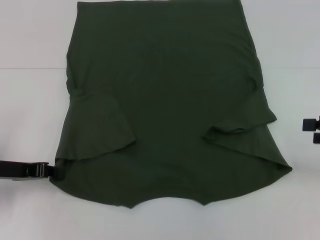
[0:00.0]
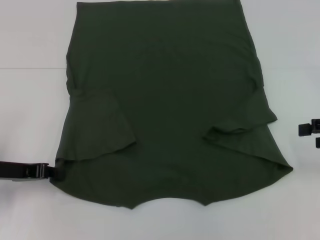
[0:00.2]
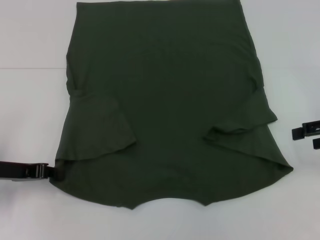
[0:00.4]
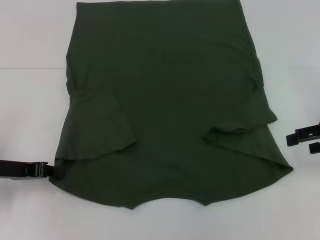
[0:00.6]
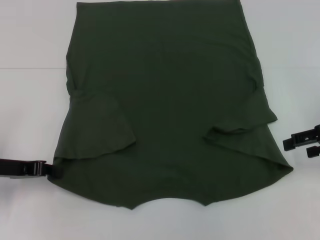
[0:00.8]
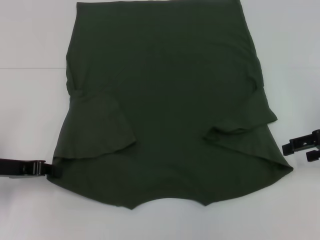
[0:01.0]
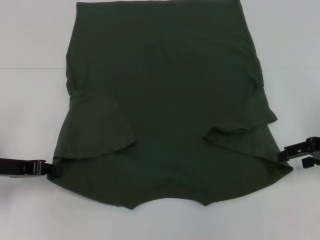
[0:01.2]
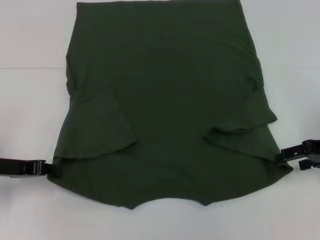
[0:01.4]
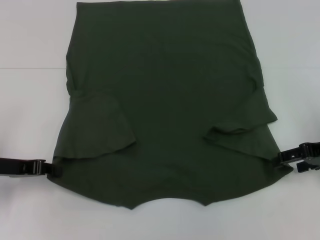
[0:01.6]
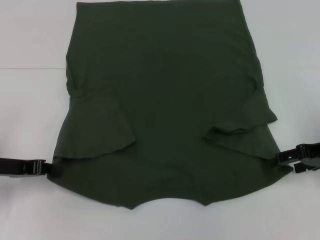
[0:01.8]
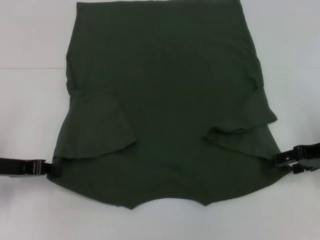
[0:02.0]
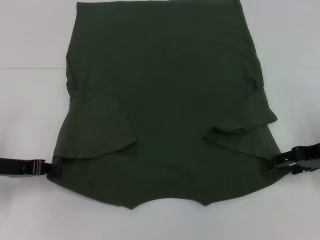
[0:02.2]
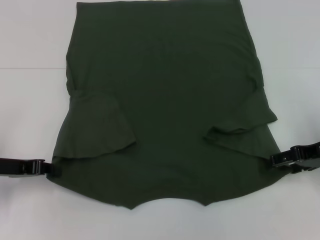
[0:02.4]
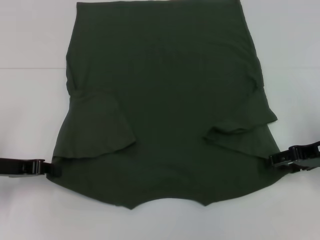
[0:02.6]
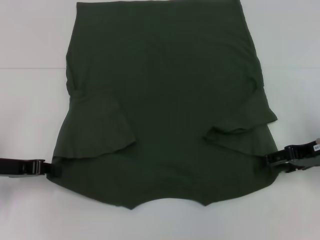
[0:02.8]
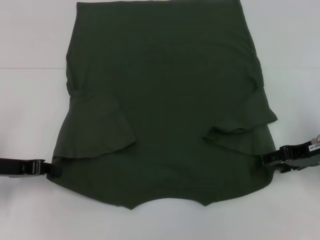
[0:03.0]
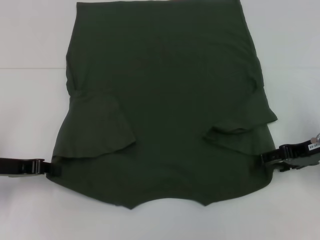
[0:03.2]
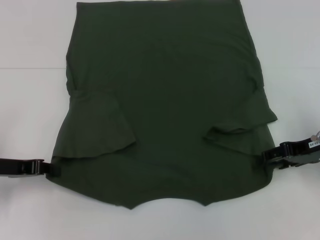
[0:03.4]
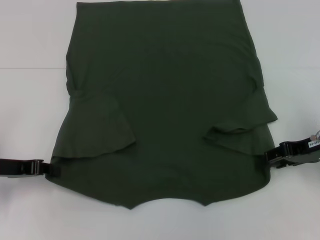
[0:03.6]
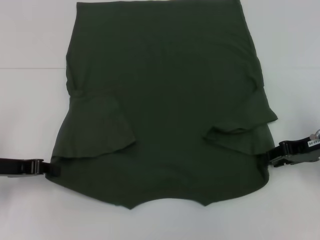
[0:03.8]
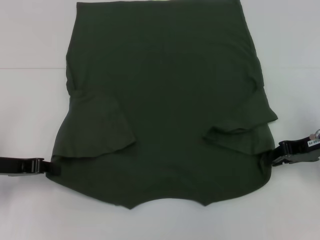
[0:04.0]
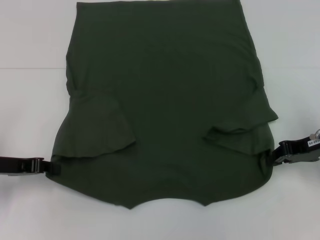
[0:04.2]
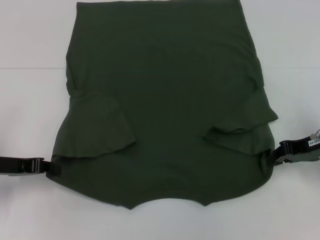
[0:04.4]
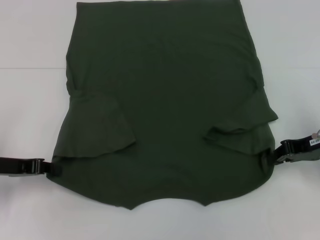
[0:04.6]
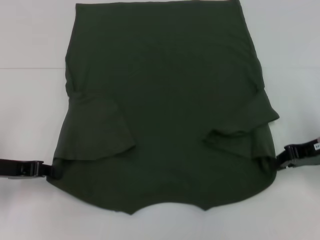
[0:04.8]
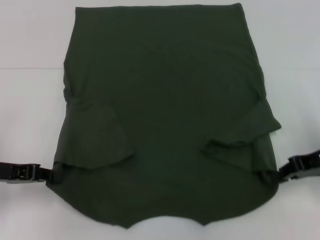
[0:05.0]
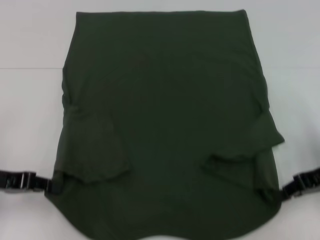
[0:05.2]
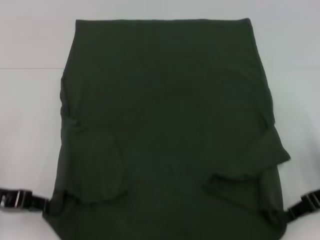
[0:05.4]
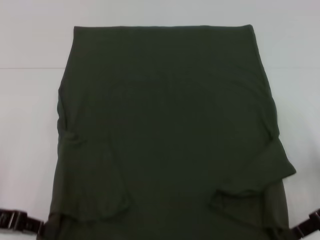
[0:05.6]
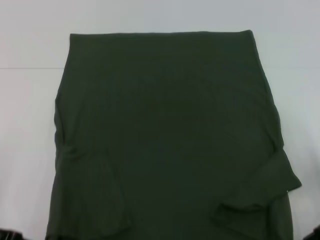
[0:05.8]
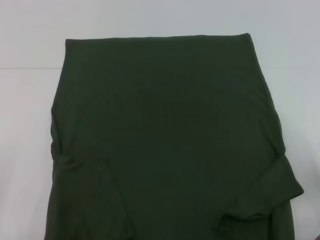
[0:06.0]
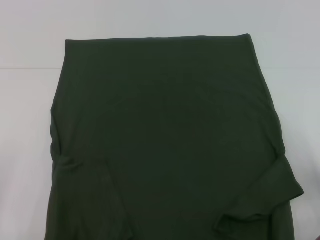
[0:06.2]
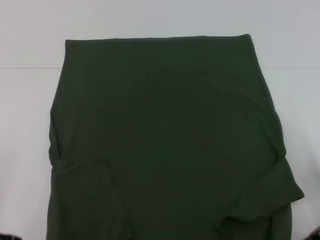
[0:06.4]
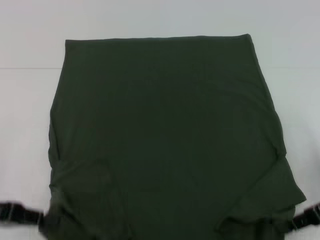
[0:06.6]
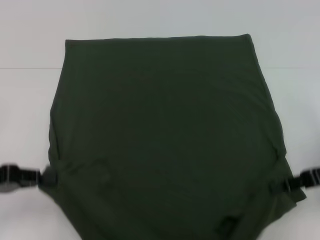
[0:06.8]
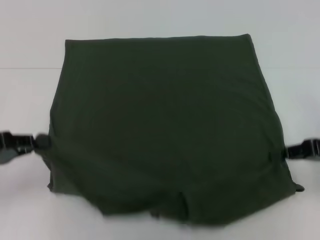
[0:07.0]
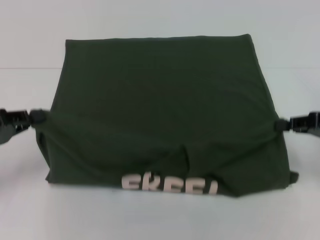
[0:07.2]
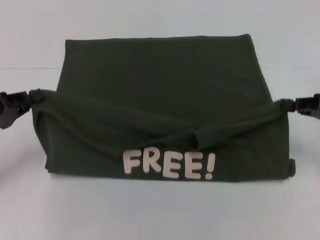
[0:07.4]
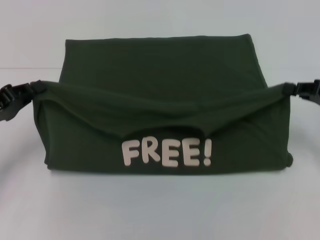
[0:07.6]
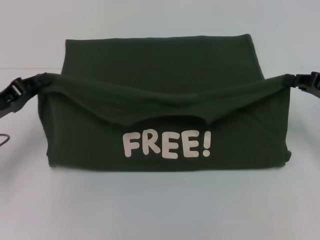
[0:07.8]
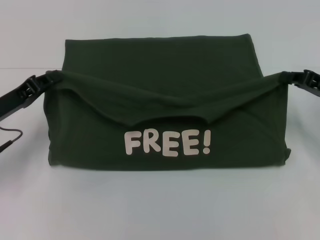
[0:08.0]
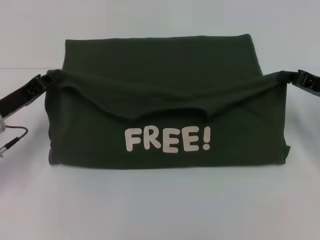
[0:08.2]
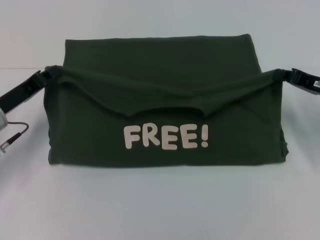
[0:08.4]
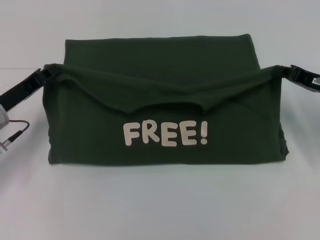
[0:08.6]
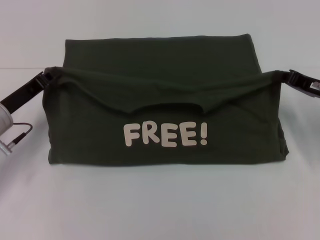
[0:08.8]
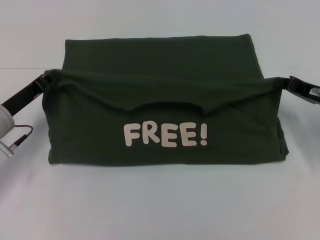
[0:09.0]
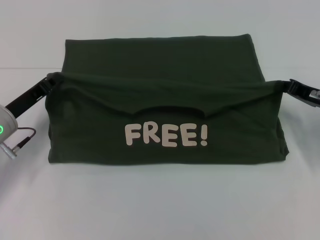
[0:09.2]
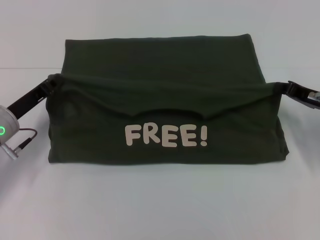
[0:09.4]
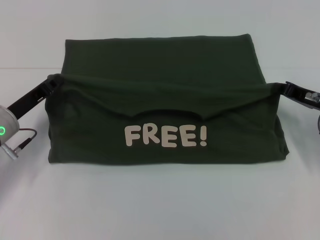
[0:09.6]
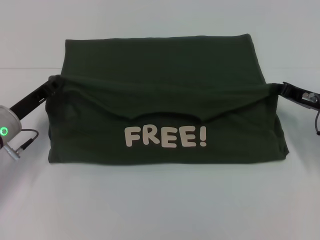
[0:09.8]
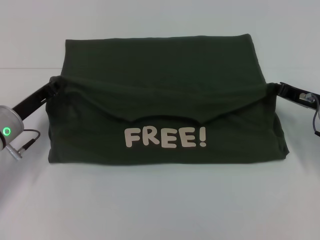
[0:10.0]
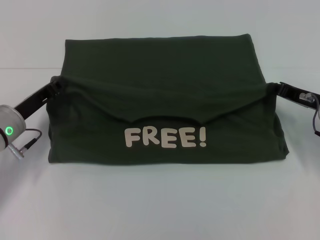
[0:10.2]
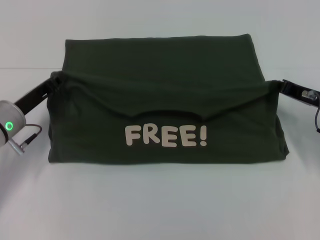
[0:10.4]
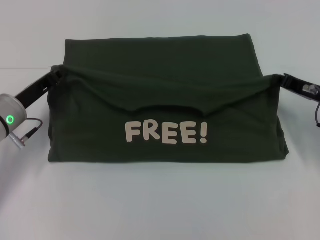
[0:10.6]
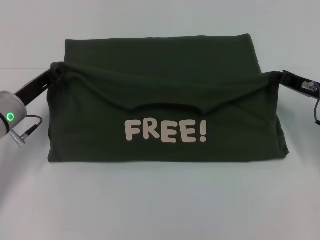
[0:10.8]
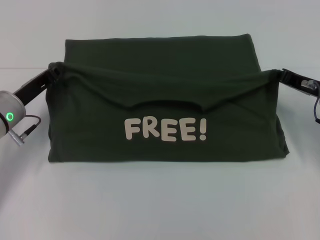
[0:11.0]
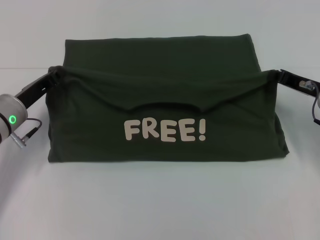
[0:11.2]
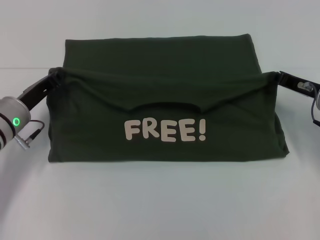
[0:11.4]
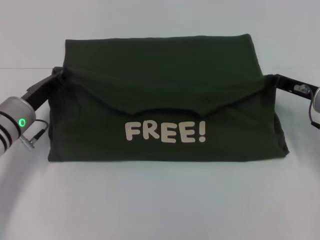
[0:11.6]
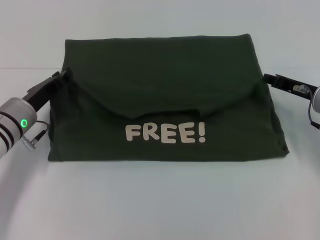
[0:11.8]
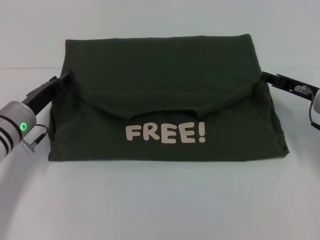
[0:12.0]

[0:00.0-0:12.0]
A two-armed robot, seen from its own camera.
Step, 0:00.0 to 0:03.4: Grab the bottom right corner with your right hand.
0:00.0 to 0:01.6: The right gripper heads to the left, covering some 5 cm.
0:01.6 to 0:03.0: The grippers move only a little.
0:03.0 to 0:04.4: The right gripper closes its fingers.
0:04.4 to 0:06.0: Both grippers move backward, some 10 cm.
0:06.0 to 0:07.6: Both grippers travel together forward, some 5 cm.
0:07.6 to 0:09.0: The left gripper changes place by about 5 cm. Meanwhile the right gripper moves about 5 cm.
0:09.0 to 0:12.0: The grippers move only a little.

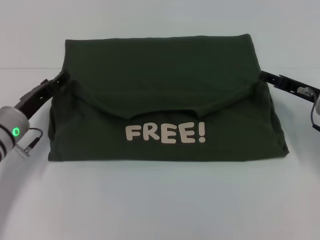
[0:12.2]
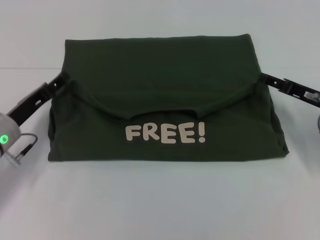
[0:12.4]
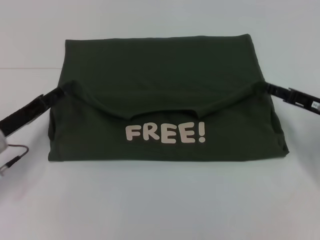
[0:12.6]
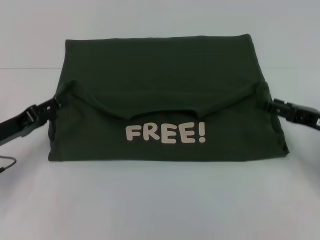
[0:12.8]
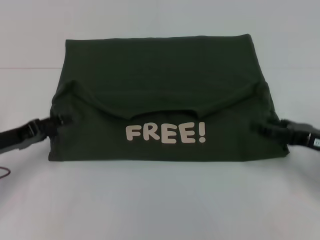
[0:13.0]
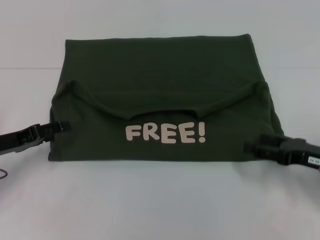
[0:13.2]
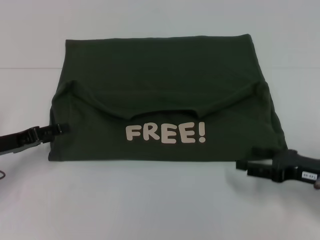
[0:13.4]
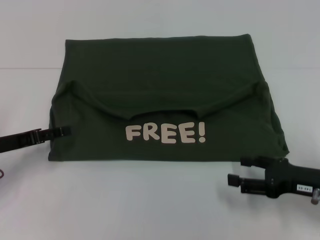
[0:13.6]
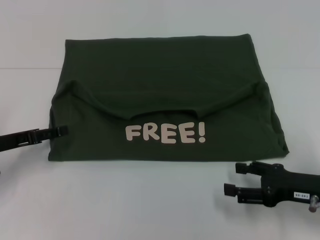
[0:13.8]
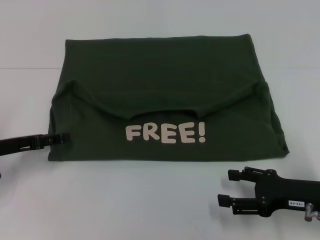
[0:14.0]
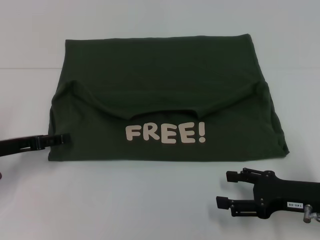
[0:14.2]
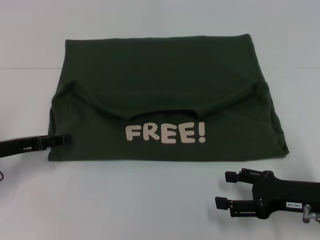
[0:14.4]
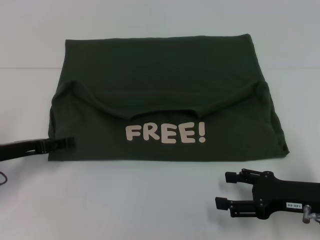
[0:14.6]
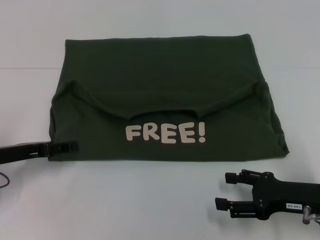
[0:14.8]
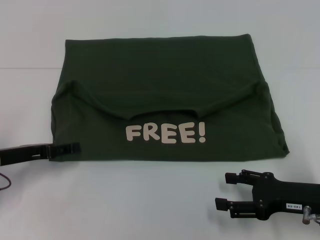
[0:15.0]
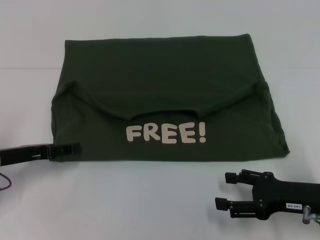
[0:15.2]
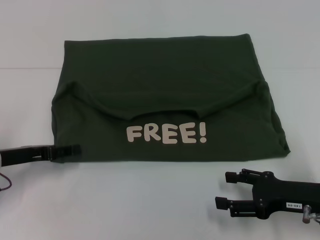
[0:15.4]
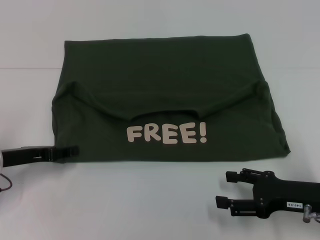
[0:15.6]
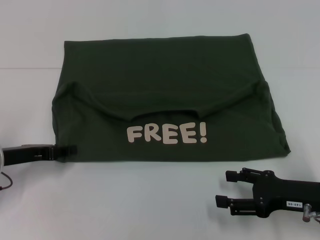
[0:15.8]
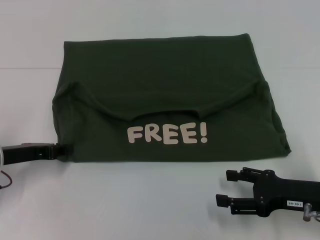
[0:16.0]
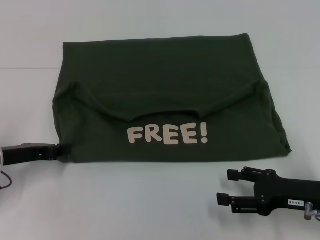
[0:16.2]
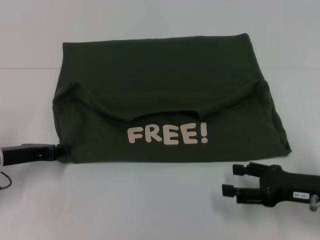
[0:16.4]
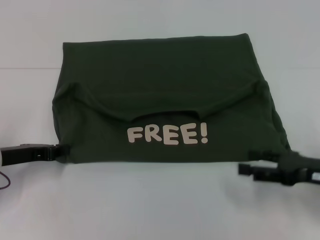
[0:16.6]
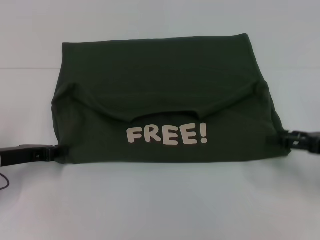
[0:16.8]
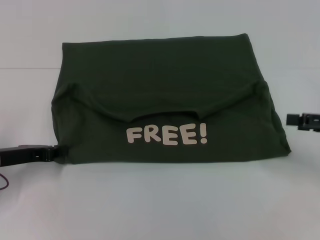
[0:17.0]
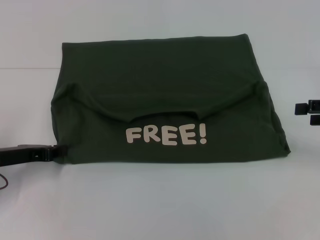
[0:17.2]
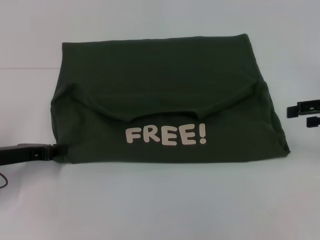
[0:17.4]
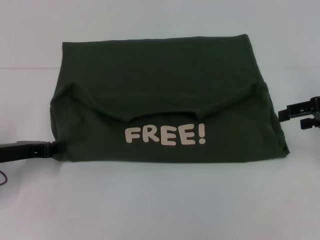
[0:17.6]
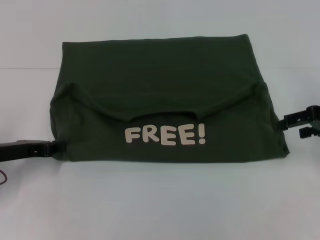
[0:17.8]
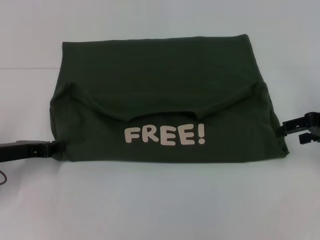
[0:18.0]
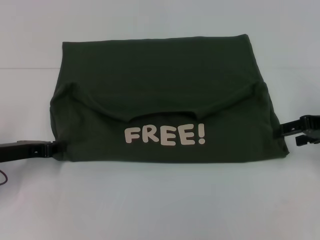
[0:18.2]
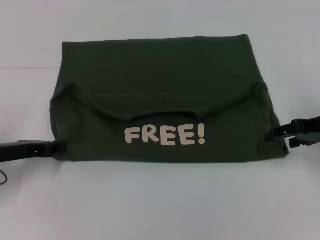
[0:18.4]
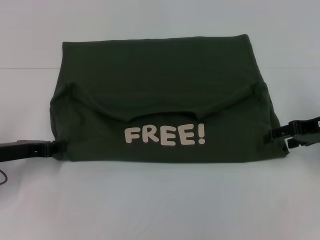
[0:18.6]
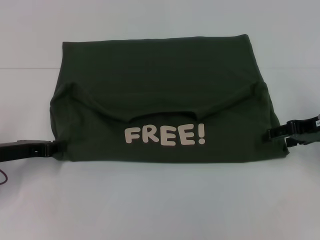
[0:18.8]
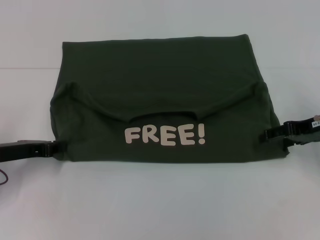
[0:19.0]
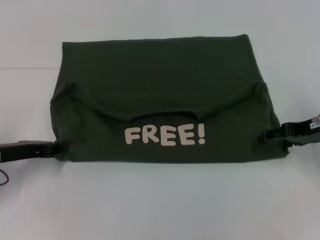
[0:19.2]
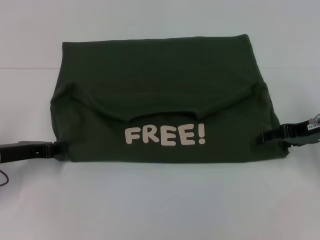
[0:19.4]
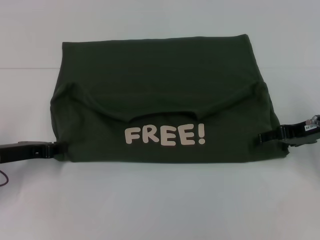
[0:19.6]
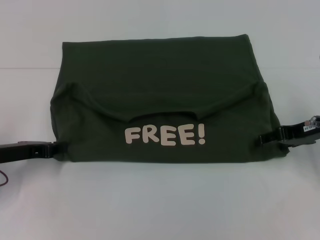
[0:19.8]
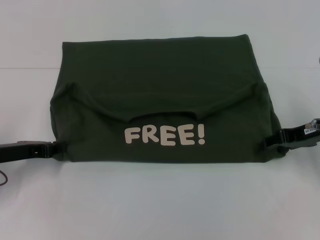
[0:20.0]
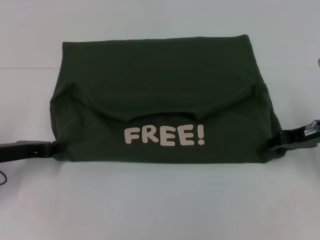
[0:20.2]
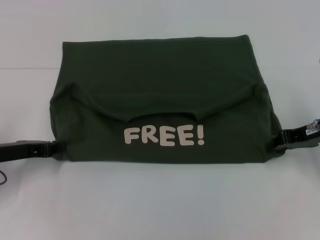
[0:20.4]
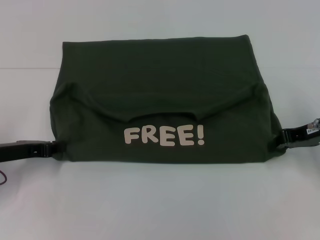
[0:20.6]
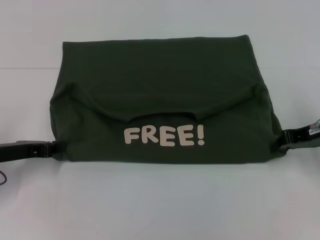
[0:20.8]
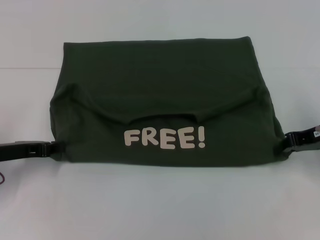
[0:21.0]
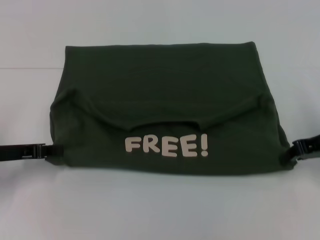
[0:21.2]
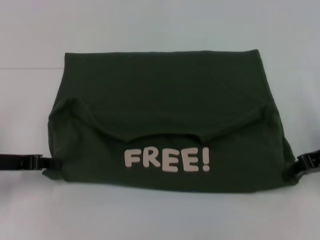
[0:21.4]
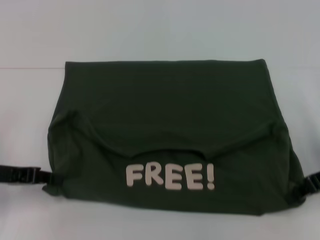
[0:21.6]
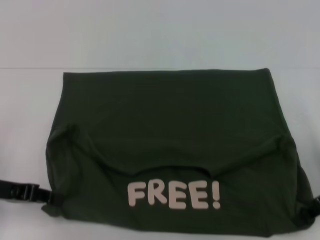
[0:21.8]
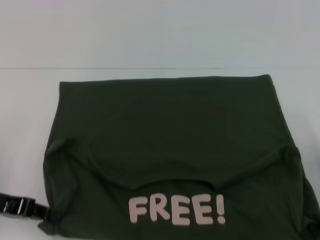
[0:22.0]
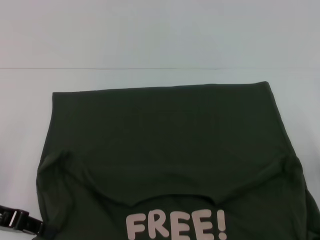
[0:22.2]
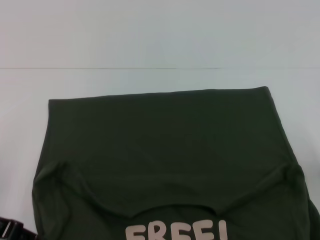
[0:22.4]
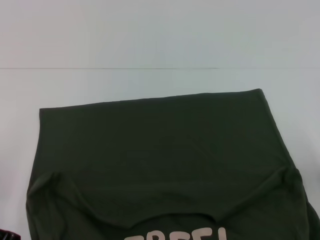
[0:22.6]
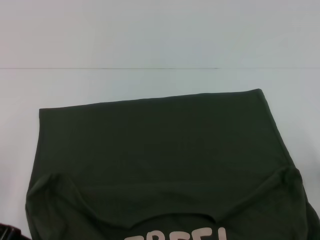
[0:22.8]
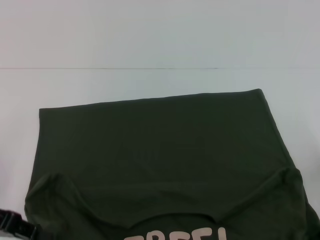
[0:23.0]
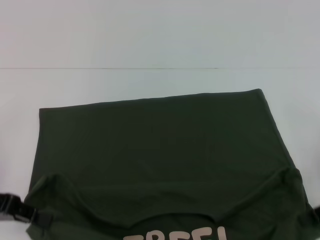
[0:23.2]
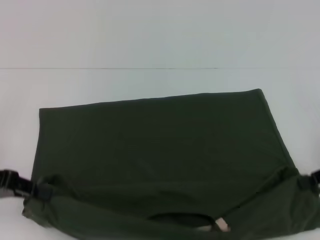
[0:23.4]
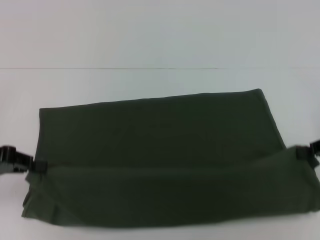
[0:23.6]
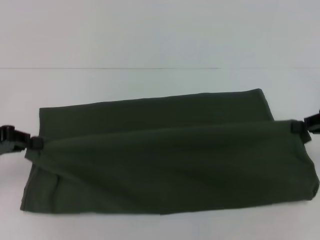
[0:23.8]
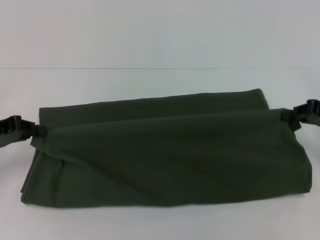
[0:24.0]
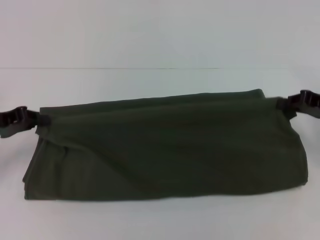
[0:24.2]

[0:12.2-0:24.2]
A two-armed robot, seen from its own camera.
Step, 0:12.6 to 0:22.8: Pull the clothes with your left hand.
Step, 0:12.6 to 0:22.8: Pull the clothes with your right hand.
0:12.2 to 0:13.8: The left gripper is displaced to the left by approximately 5 cm, and opens, while the right gripper travels backward by roughly 15 cm, and opens.
0:13.8 to 0:15.2: The grippers stay close to where they were, moving slightly.
0:15.2 to 0:16.6: The left gripper closes its fingers.
0:16.6 to 0:18.2: The right gripper shifts some 10 cm forward and upward.
0:18.2 to 0:19.8: The grippers make only small movements.
0:19.8 to 0:21.2: The right gripper closes its fingers.
0:21.2 to 0:22.6: The two grippers go some 5 cm backward.
0:22.6 to 0:24.2: Both grippers move forward, approximately 10 cm.
